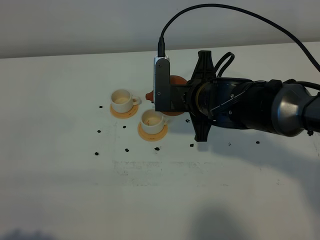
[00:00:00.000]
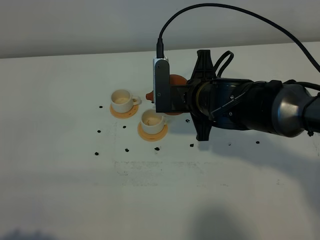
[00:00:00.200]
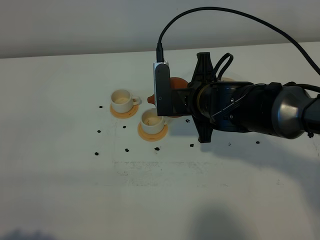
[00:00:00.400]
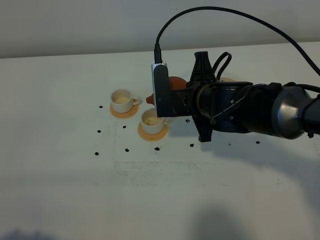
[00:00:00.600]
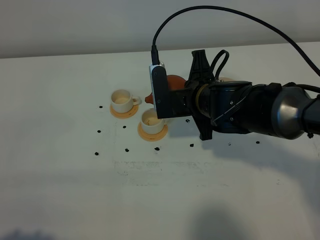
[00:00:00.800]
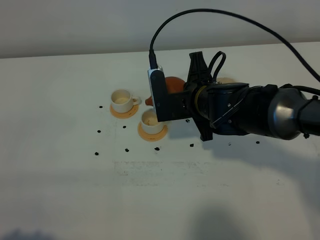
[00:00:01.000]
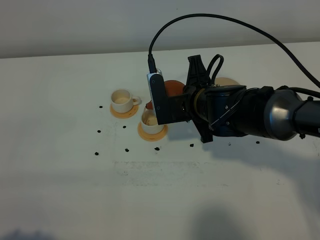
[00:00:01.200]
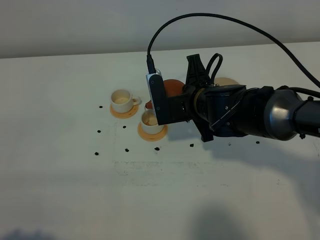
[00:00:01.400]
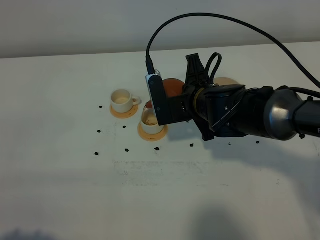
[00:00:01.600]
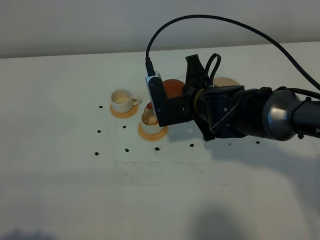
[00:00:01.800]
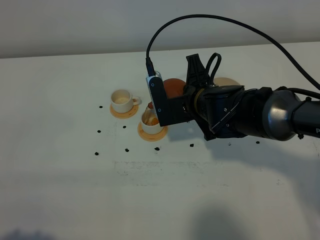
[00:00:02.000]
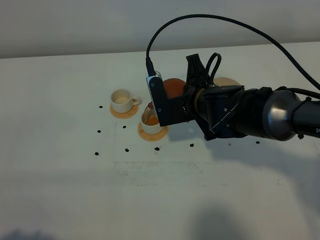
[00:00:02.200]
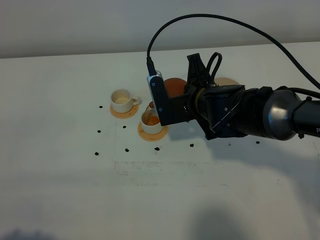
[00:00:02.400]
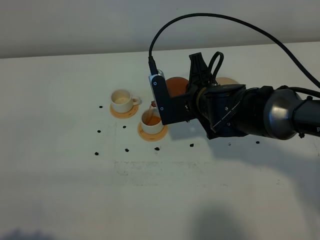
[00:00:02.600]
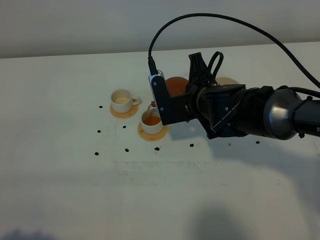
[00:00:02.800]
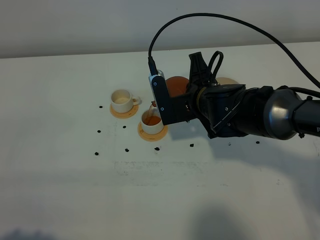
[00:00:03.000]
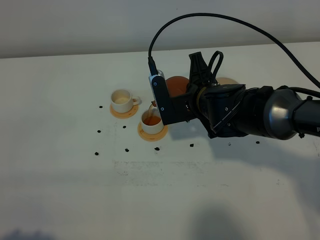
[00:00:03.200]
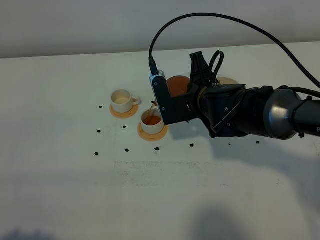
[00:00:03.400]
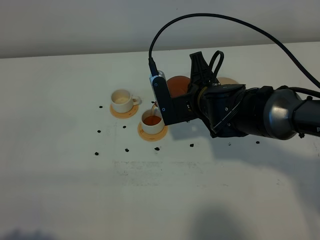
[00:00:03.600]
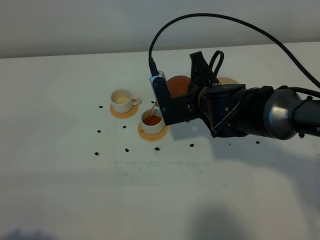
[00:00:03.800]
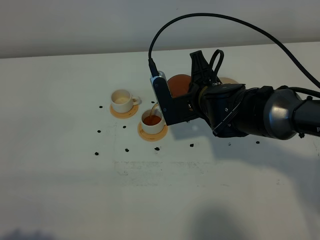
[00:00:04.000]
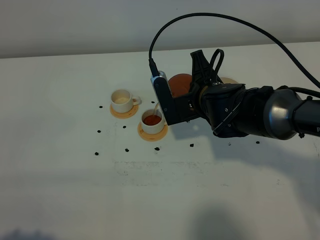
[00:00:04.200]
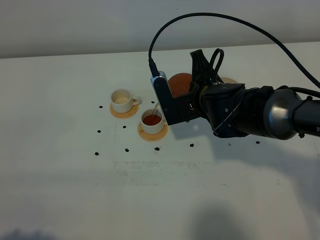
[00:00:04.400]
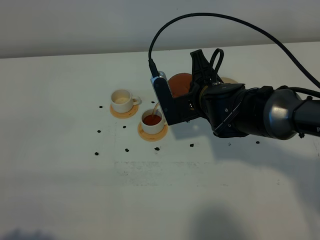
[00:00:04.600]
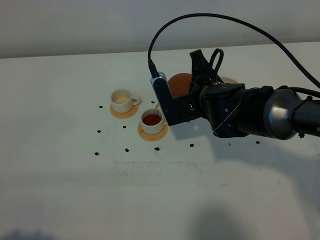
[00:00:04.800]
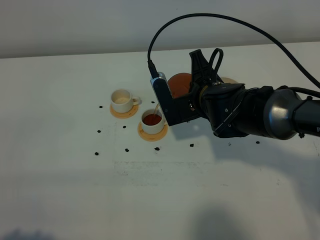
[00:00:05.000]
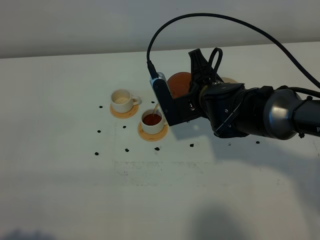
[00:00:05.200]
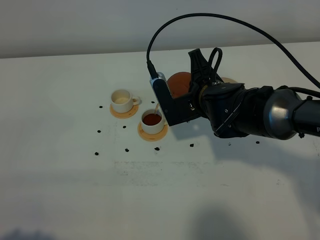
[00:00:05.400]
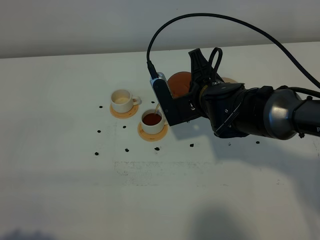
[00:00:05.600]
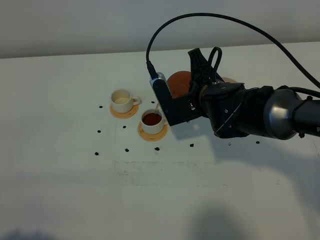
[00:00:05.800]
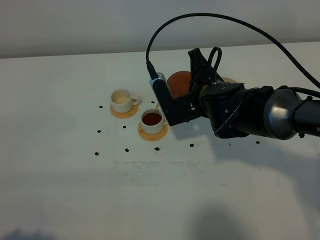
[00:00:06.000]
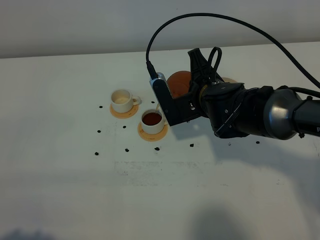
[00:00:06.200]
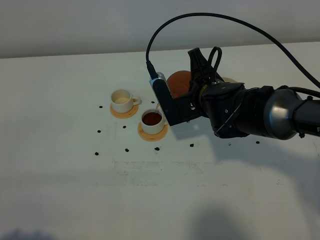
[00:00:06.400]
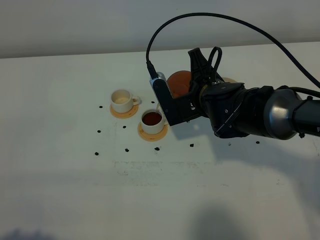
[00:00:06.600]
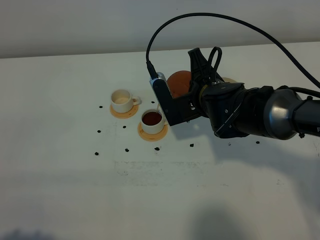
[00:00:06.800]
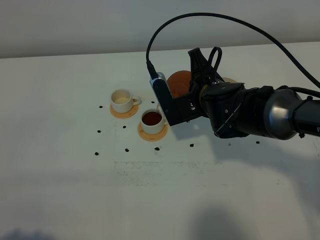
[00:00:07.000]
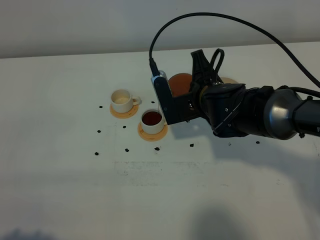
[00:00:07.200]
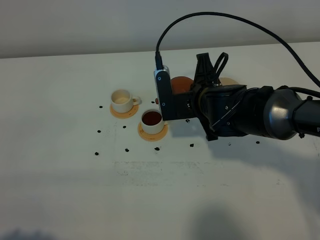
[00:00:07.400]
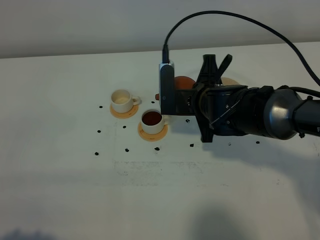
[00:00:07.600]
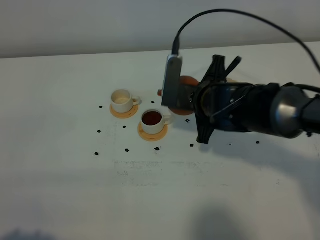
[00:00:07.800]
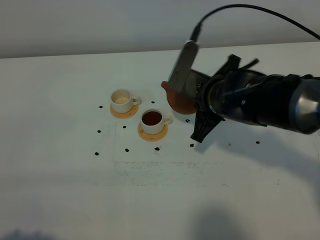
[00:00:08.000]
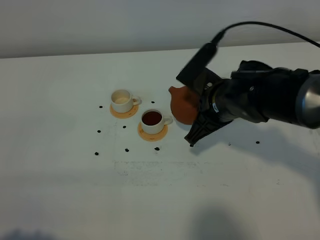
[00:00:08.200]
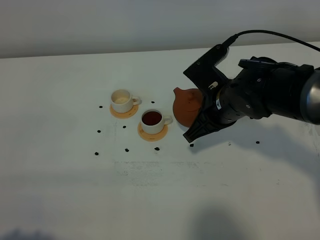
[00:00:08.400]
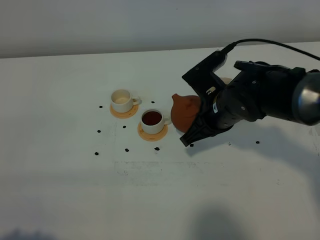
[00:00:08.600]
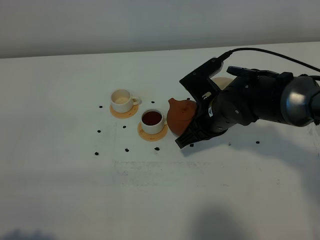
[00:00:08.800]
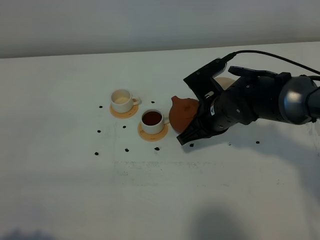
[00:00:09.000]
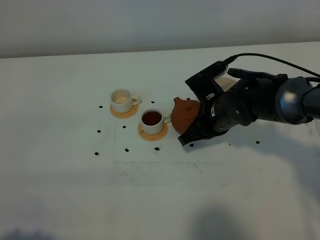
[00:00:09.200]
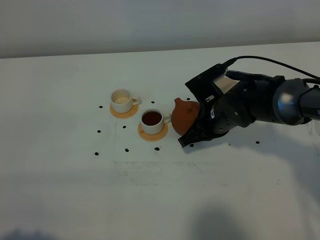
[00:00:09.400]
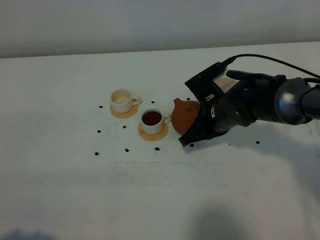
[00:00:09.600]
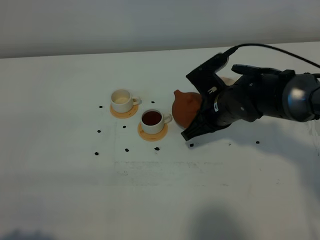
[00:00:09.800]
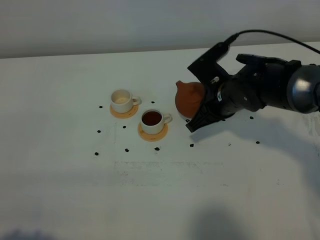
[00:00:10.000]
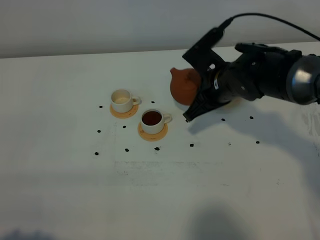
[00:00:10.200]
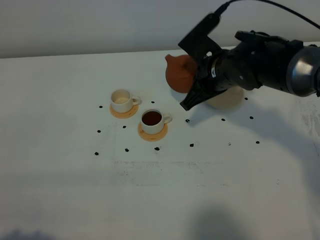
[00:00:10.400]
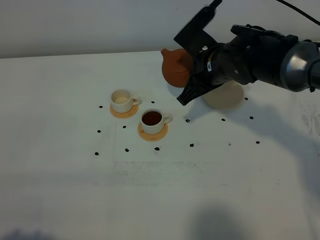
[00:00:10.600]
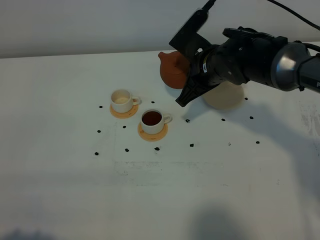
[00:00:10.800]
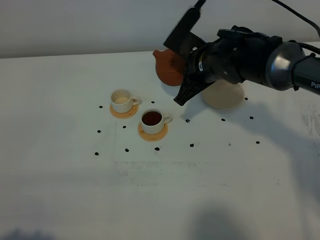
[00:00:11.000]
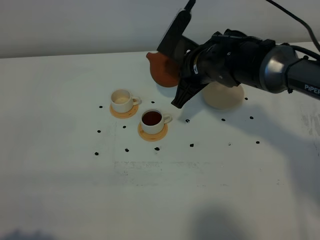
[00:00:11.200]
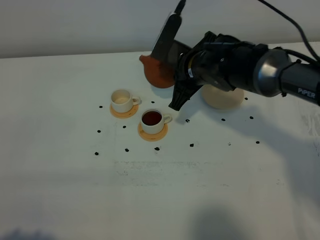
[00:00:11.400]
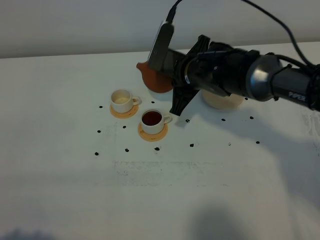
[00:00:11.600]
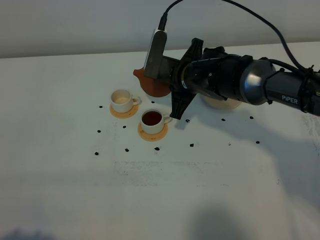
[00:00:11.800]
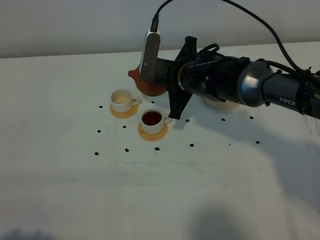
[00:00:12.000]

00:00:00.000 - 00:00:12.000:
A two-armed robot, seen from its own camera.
Task of the whole recording: grasp the brown teapot and pour the tea into the two white teacups one by one, put the brown teapot back in its original place.
00:00:00.000 - 00:00:01.600: The grippers make only small movements.
00:00:01.600 - 00:00:03.000: The two grippers keep their place.
00:00:03.000 - 00:00:04.400: The grippers make only small movements.
00:00:04.400 - 00:00:06.000: Neither gripper changes place.
00:00:09.000 - 00:00:10.400: The right gripper travels upward by some 5 cm.
00:00:10.400 - 00:00:12.000: The right gripper heads to the left, covering roughly 5 cm.

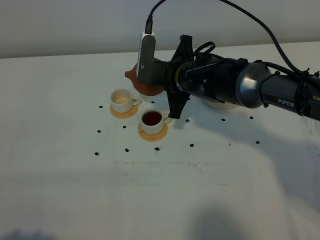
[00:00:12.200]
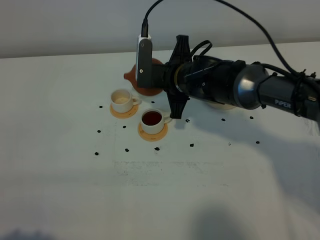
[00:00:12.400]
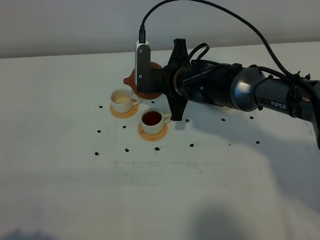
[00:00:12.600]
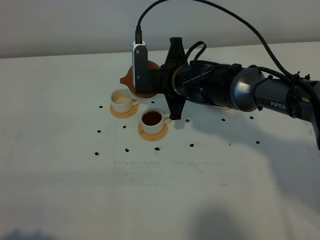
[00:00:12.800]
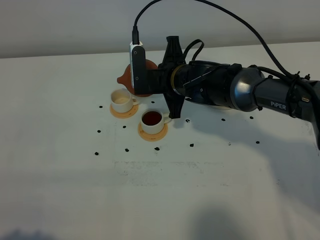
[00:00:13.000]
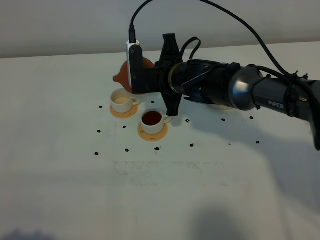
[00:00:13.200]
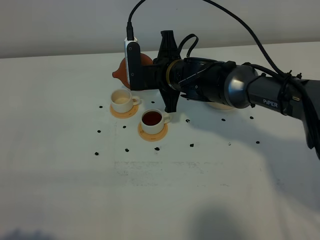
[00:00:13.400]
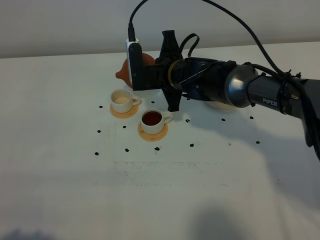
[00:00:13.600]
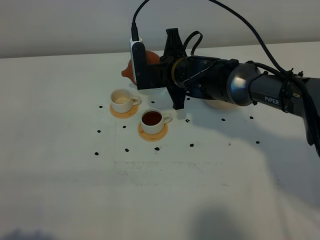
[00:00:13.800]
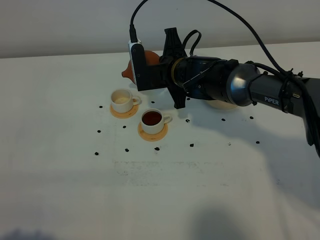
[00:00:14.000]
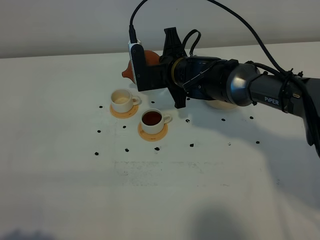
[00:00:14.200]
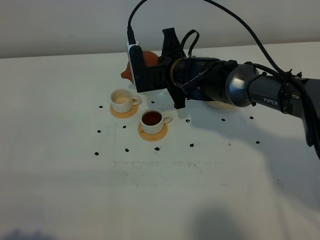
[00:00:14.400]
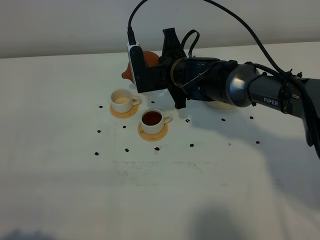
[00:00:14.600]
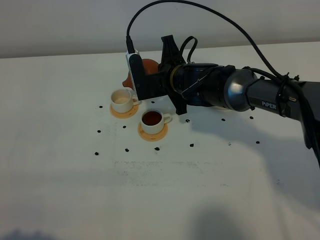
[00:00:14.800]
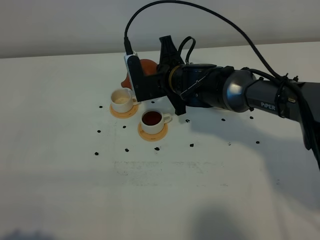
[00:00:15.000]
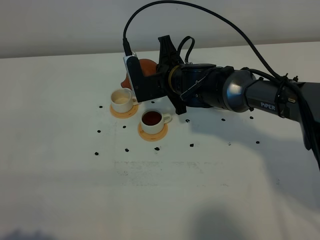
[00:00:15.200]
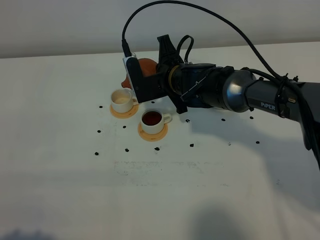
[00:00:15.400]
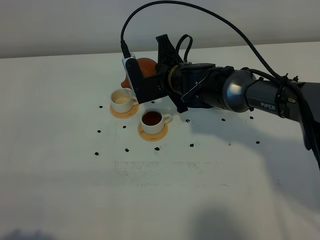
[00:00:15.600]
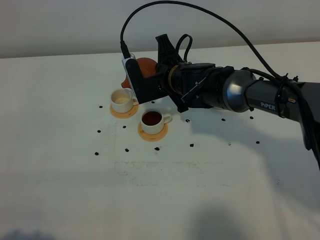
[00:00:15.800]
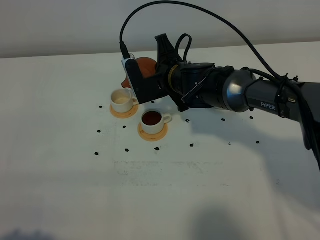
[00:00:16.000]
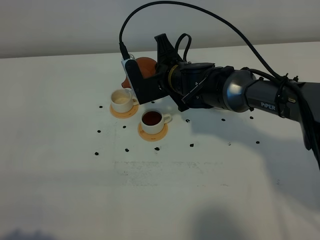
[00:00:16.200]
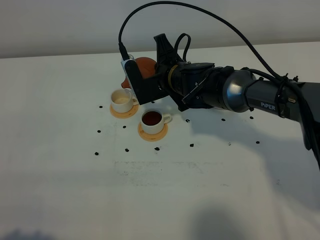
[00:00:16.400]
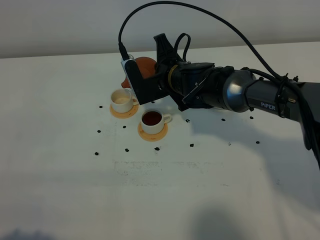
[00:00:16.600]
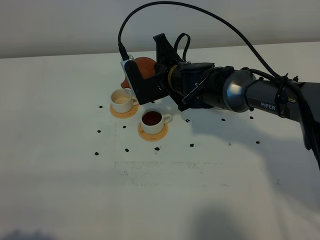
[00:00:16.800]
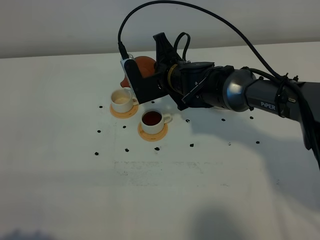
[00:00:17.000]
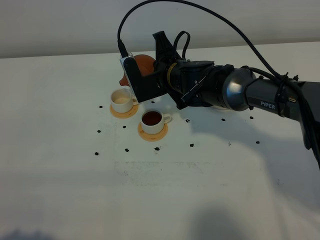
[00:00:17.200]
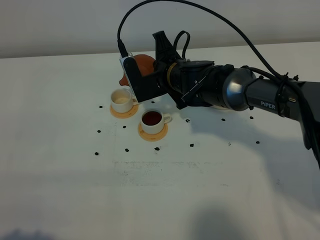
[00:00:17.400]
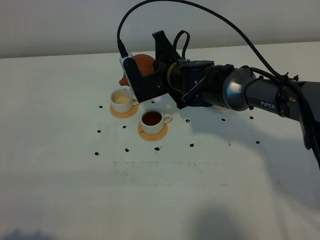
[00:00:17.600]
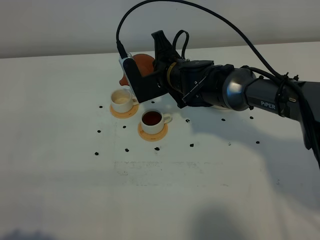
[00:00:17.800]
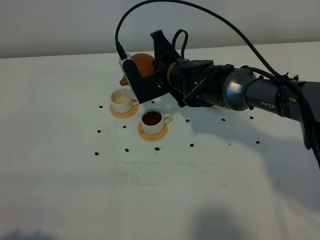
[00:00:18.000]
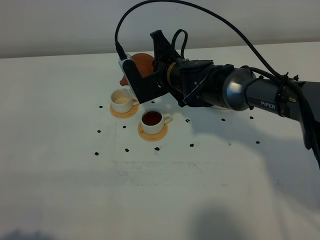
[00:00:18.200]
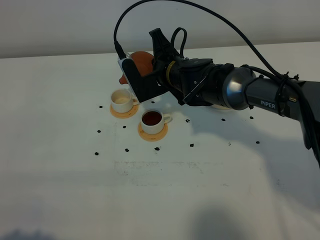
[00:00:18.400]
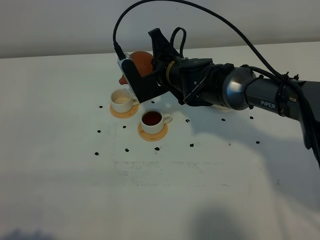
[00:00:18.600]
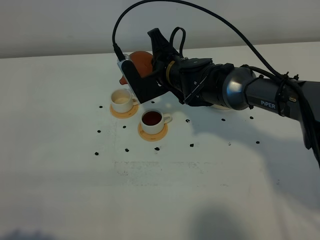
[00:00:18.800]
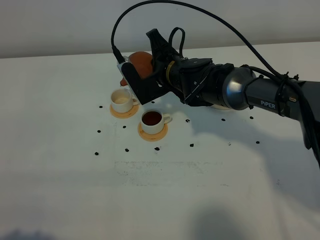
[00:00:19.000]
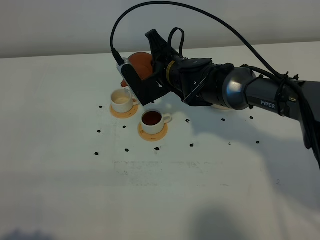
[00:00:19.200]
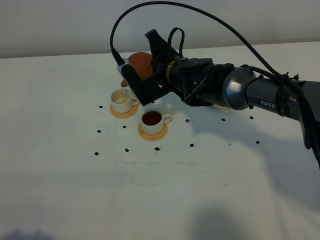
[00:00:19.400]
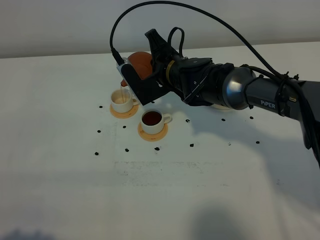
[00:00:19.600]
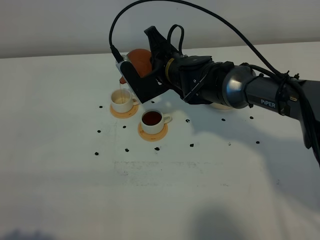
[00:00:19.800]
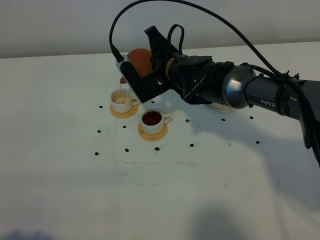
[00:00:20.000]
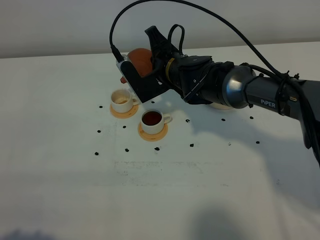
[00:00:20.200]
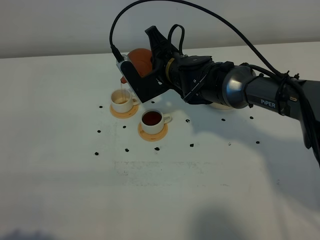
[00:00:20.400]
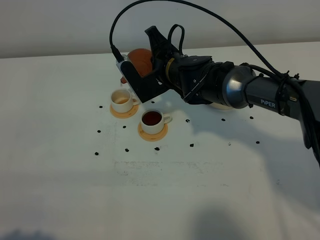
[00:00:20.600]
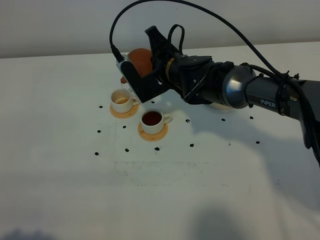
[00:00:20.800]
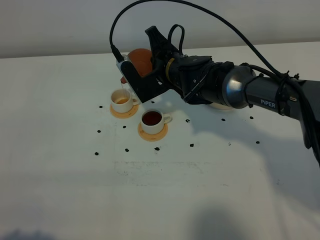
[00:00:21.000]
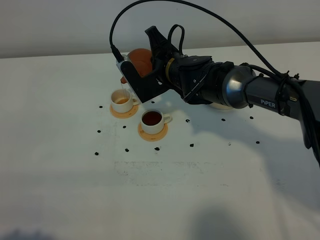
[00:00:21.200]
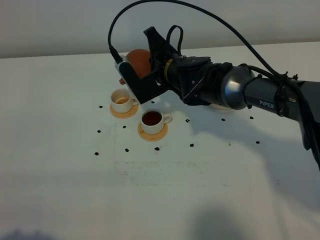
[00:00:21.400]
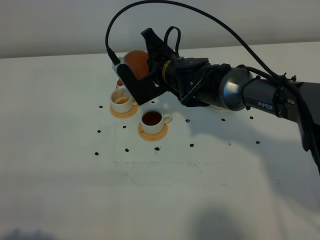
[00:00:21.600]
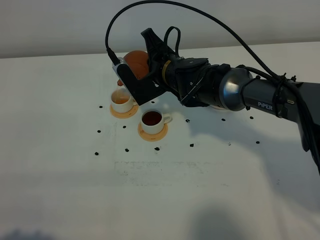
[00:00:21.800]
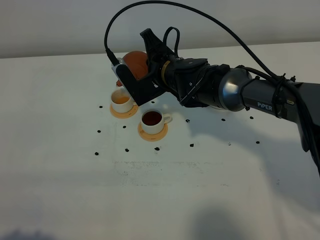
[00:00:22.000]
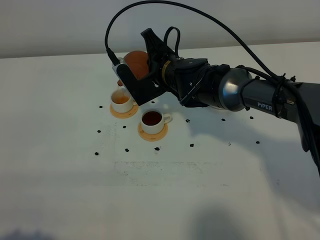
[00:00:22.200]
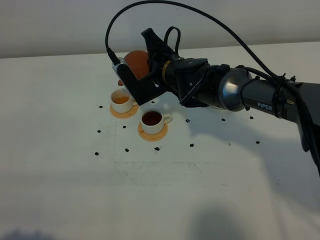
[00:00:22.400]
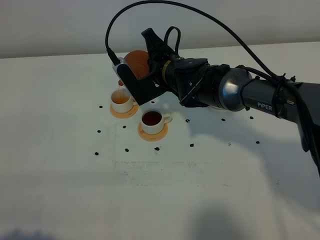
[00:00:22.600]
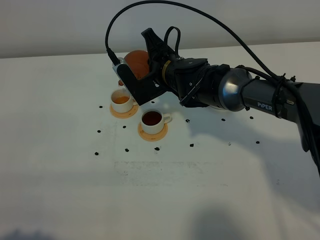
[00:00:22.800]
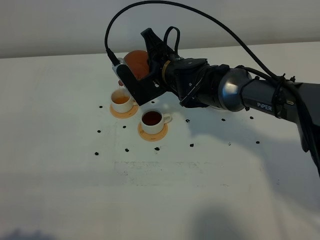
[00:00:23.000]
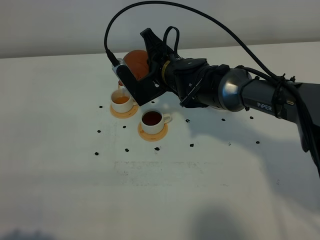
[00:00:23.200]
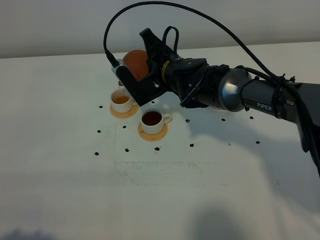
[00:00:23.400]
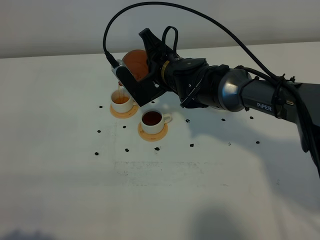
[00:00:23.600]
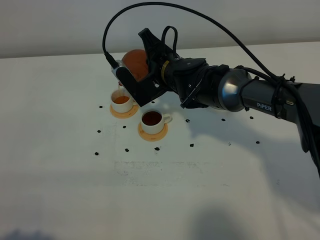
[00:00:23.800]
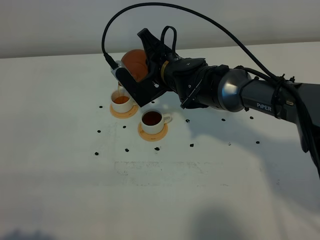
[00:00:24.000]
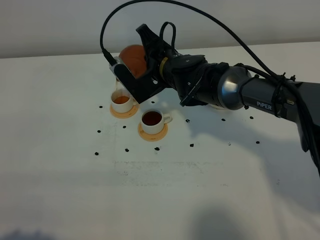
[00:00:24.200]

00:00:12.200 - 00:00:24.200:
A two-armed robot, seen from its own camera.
Task of the whole recording: grasp the brown teapot and pour the tea into the two white teacups one by one, put the brown teapot back in its original place.
00:00:12.200 - 00:00:13.800: The grippers move only a little.
00:00:13.800 - 00:00:16.600: The grippers make only small movements.
00:00:16.600 - 00:00:18.200: Both grippers stay about where they are.
00:00:18.200 - 00:00:19.800: The grippers move only a little.
00:00:19.800 - 00:00:22.600: Both grippers stay about where they are.
00:00:22.600 - 00:00:24.200: There are only small adjustments of the grippers.
